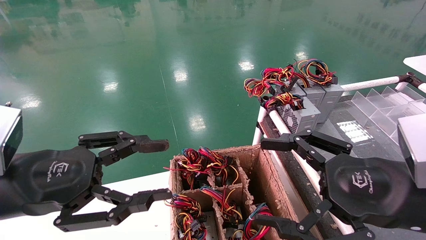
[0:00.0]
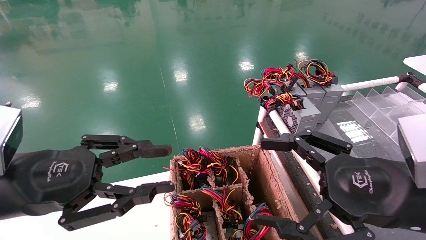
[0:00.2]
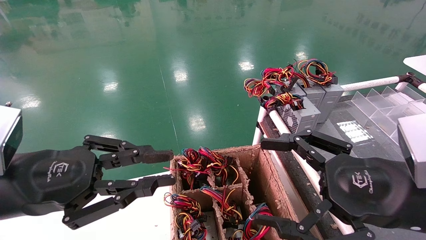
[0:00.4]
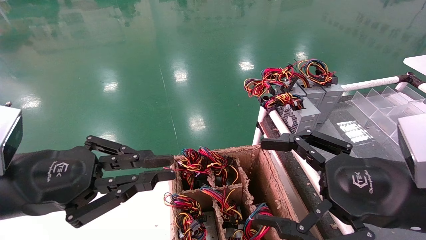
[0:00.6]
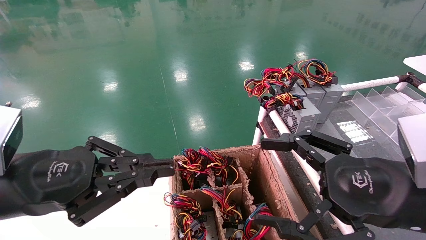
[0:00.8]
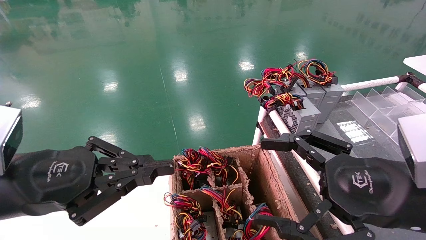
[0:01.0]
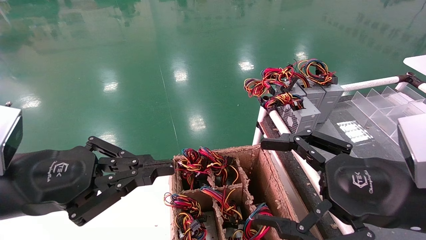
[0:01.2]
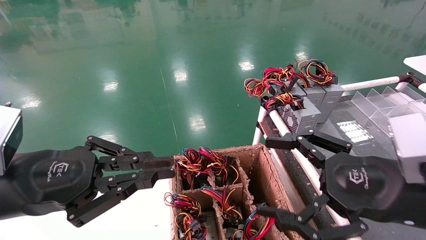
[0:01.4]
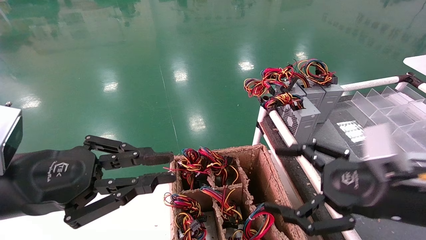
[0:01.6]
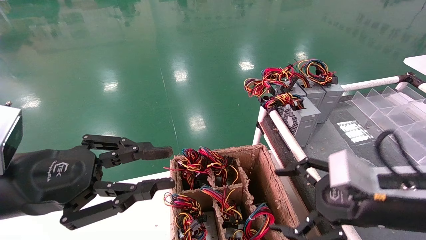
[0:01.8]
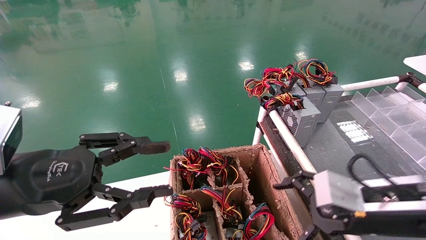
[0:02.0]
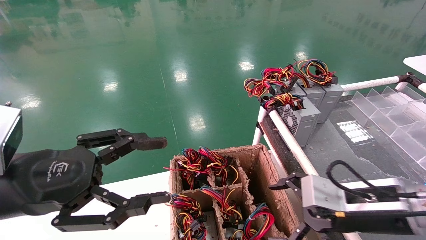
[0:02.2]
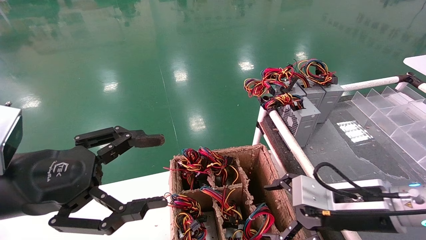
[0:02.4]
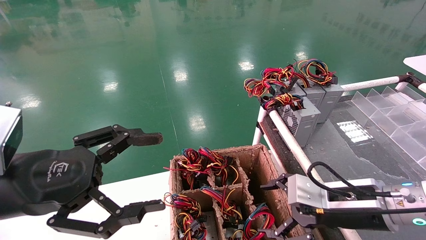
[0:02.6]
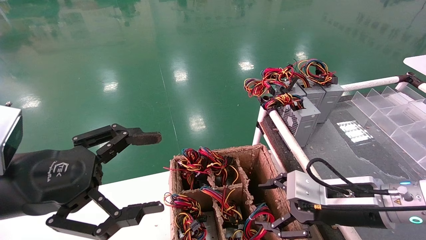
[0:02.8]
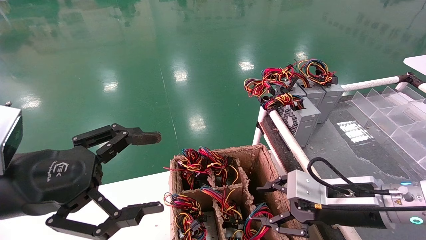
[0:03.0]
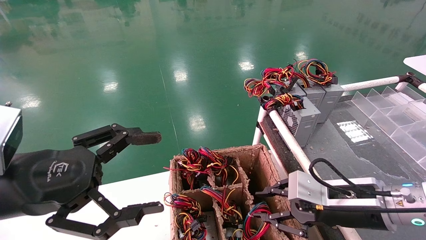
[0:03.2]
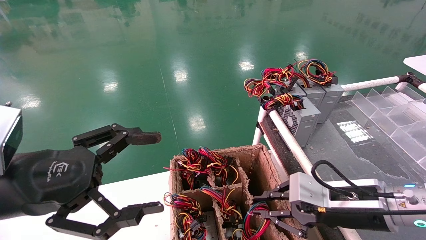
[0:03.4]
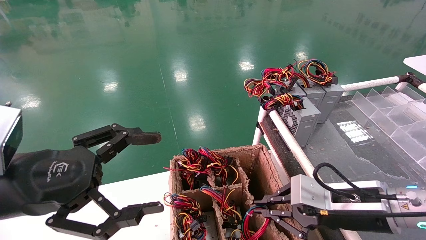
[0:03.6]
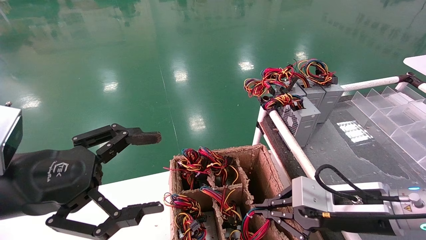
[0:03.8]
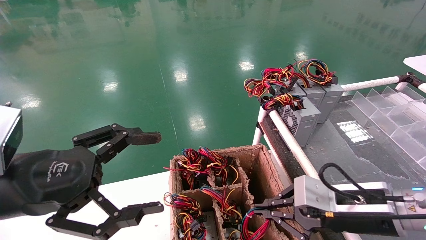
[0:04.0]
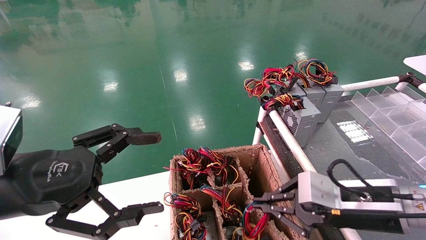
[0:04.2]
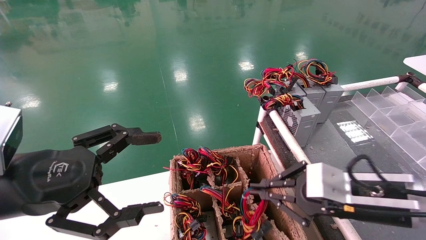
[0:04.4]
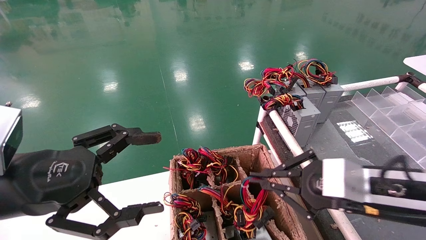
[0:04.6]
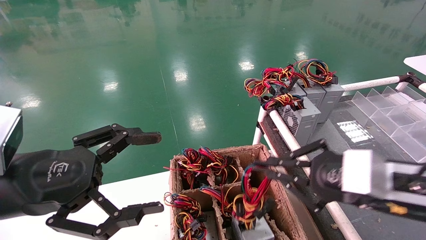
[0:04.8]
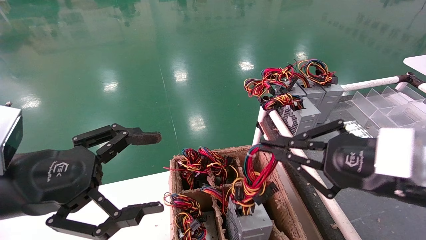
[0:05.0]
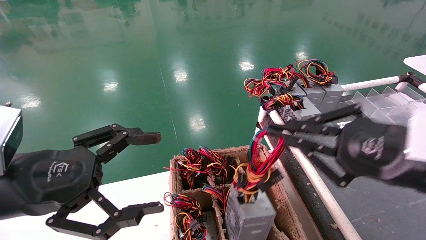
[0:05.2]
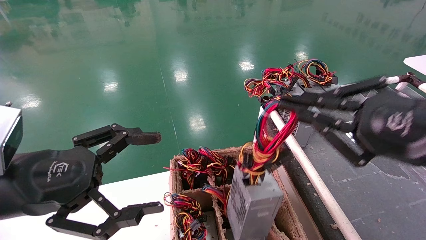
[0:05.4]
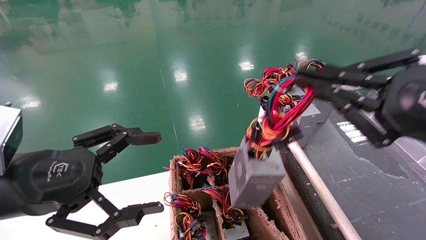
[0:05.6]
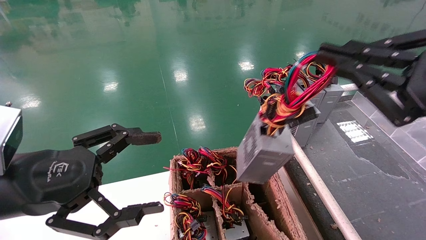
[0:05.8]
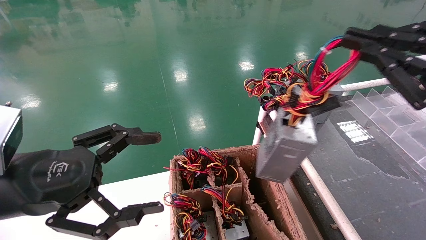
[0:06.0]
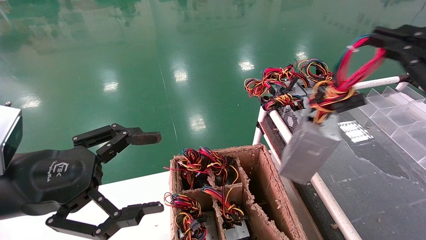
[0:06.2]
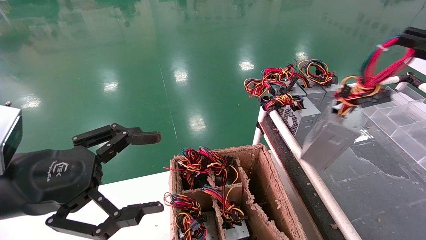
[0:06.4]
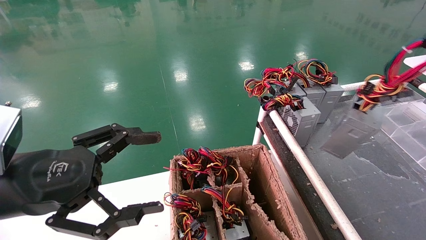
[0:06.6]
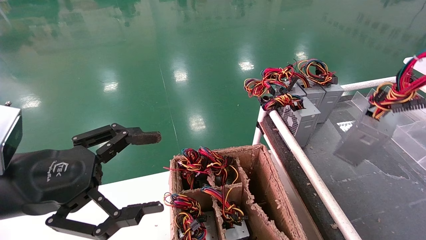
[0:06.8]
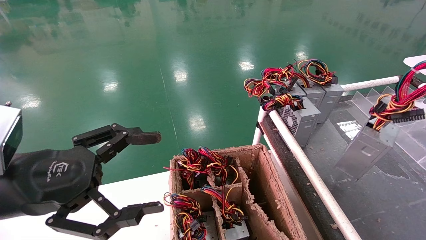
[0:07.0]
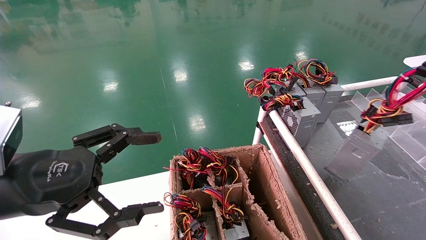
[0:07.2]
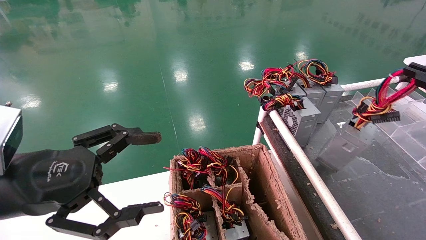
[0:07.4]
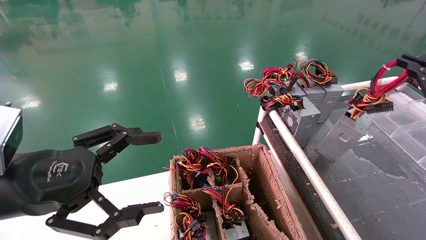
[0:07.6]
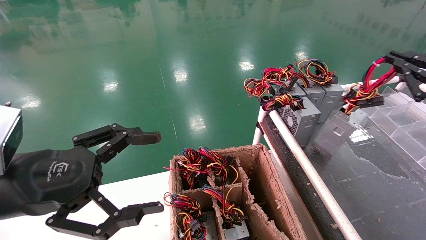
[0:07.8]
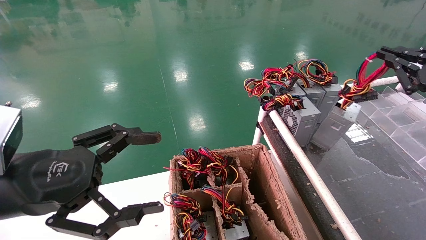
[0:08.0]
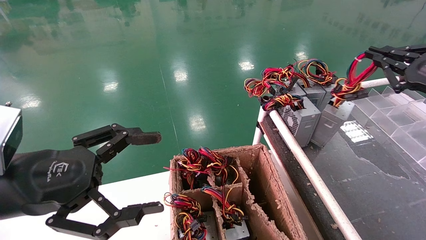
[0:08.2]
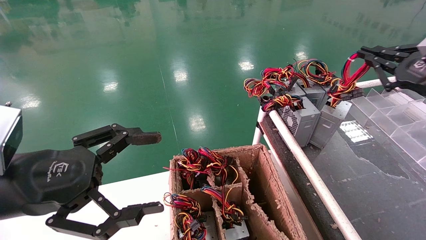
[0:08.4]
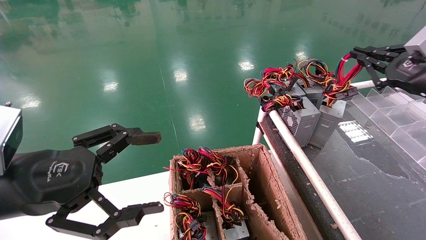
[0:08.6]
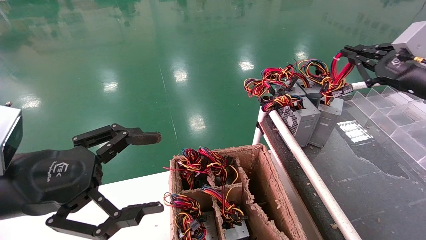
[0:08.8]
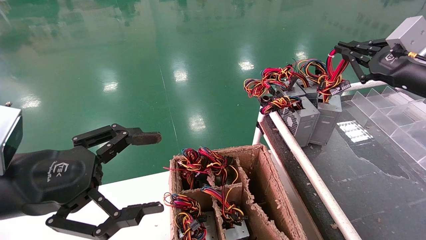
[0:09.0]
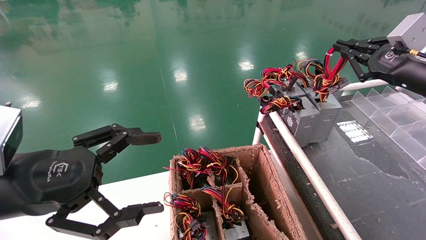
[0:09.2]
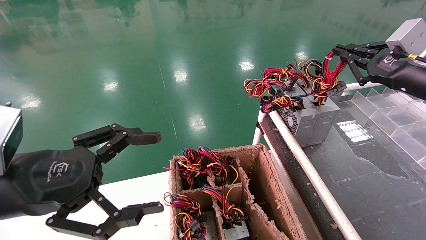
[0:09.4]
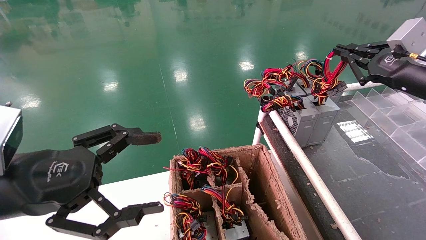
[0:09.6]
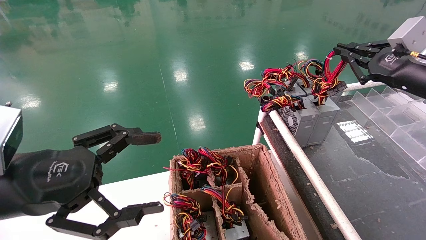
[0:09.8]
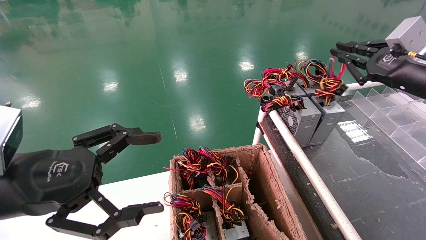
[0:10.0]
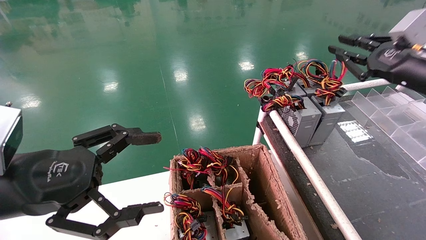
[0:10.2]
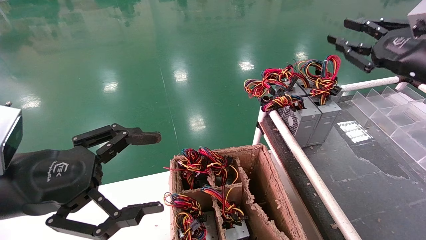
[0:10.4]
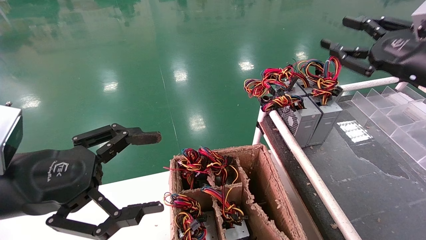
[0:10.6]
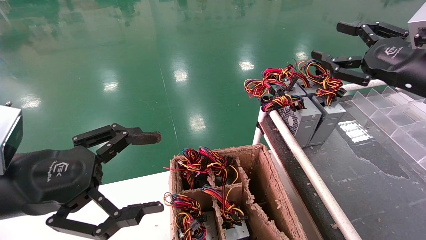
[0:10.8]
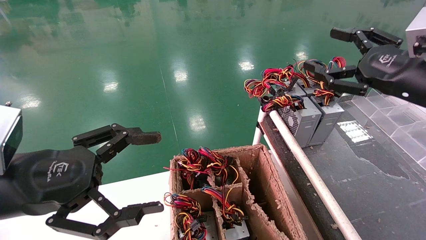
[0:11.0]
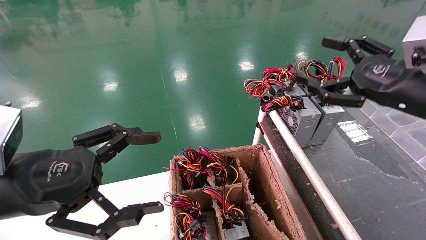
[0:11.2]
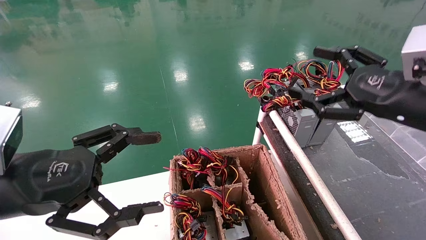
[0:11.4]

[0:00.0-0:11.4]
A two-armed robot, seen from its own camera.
Step, 0:01.0 to 0:04.4: Grab and lift the power supply from the large box.
Step, 0:04.6 to 0:10.0: Place the power supply on the operating table.
0:00.0 to 0:01.4: The left gripper closes up.
0:01.4 to 0:02.8: The right gripper is displaced forward and downward by about 10 cm; the left gripper opens.
0:02.8 to 0:04.2: The right gripper closes.
0:04.2 to 0:05.6: The right gripper moves upward, backward and to the right, some 15 cm.
0:05.6 to 0:07.2: The right gripper heads to the right, covering some 15 cm.
0:07.2 to 0:08.6: The right gripper is displaced forward by about 15 cm.
0:08.6 to 0:10.0: The grippers stay close to where they were, moving slightly.
0:10.0 to 0:11.4: The right gripper heads backward and to the left, covering approximately 10 cm, and opens up.
